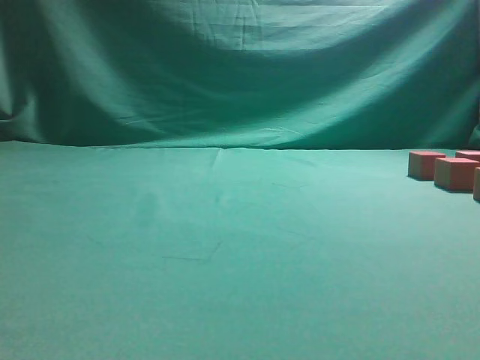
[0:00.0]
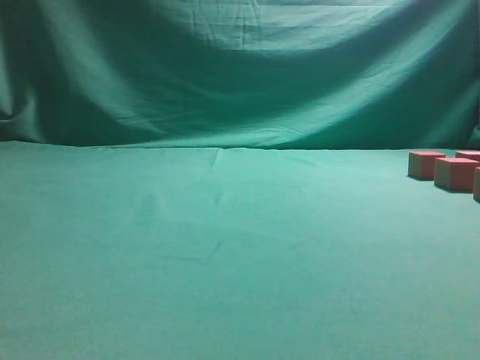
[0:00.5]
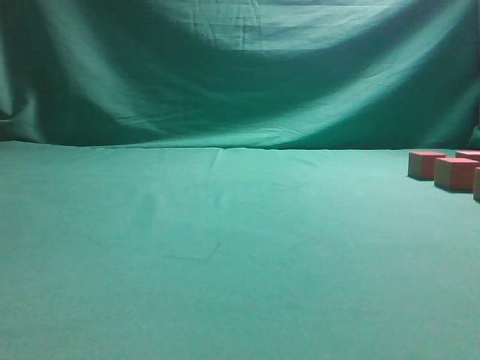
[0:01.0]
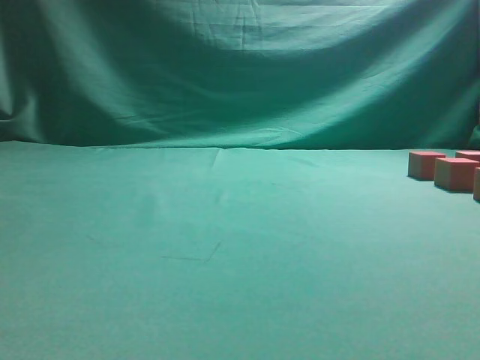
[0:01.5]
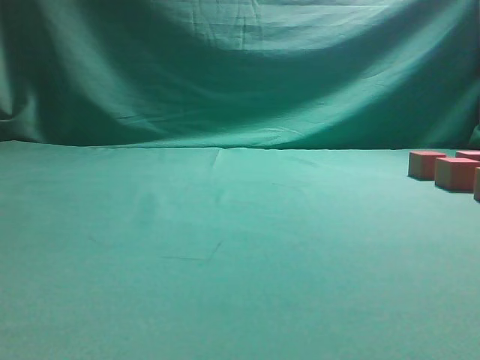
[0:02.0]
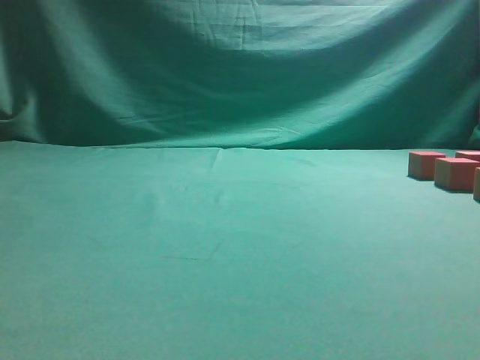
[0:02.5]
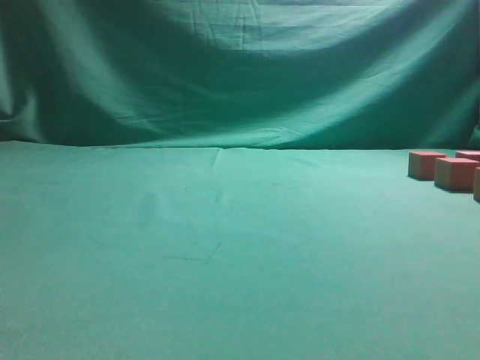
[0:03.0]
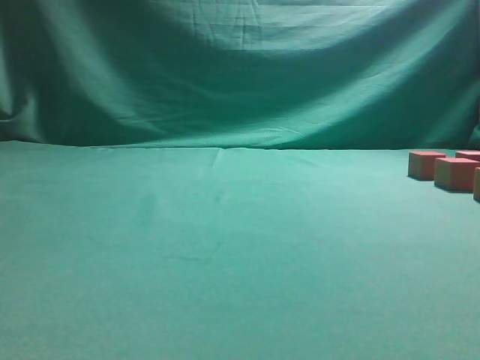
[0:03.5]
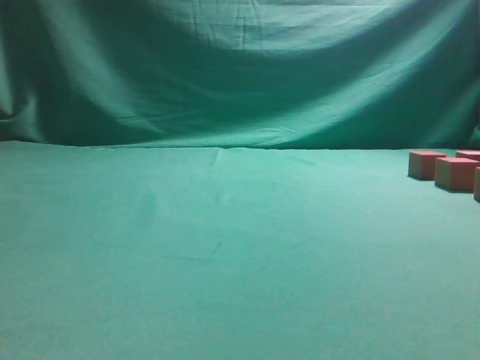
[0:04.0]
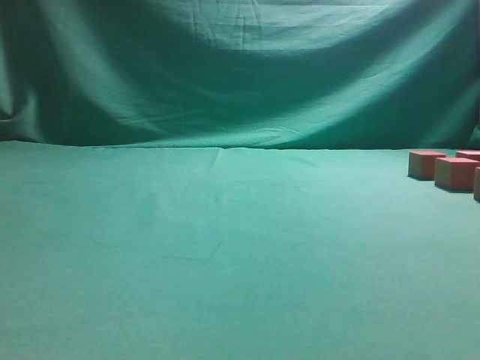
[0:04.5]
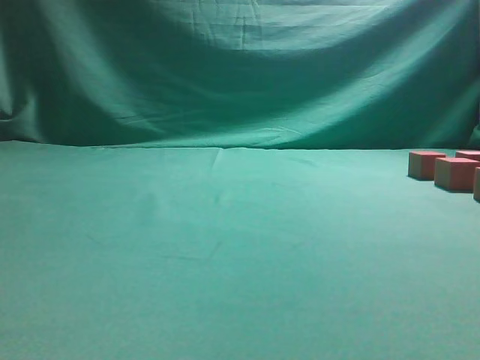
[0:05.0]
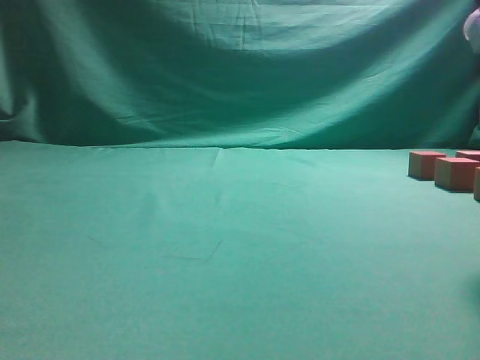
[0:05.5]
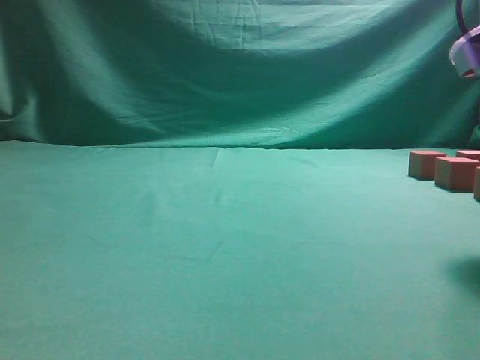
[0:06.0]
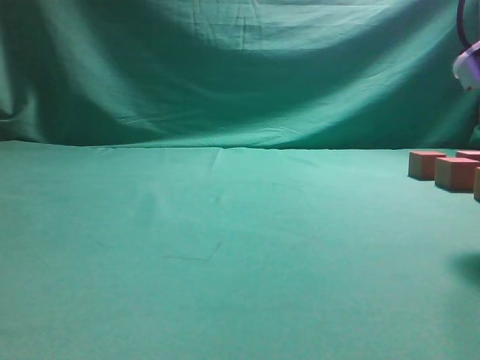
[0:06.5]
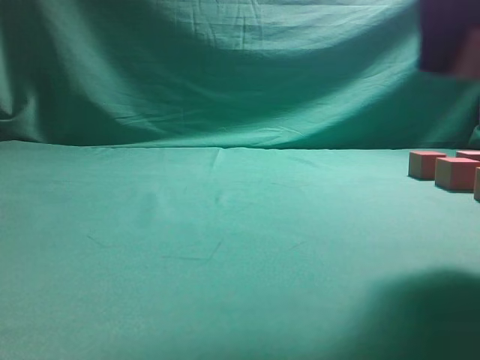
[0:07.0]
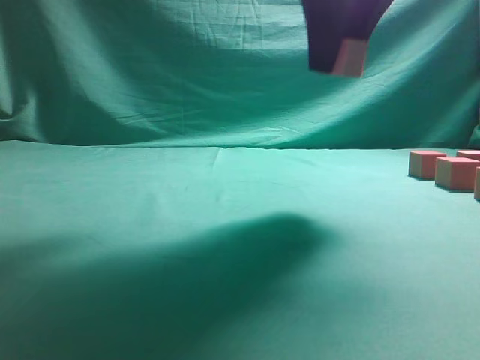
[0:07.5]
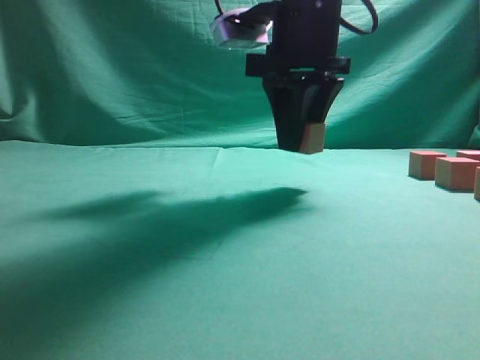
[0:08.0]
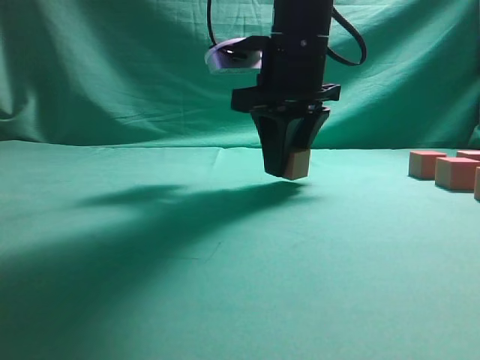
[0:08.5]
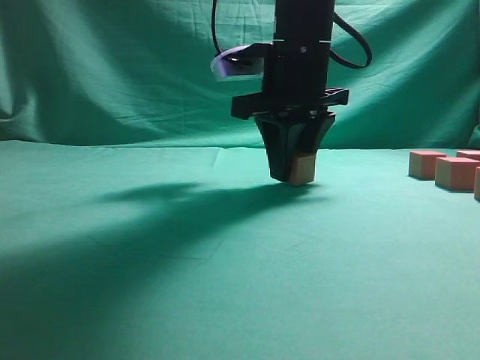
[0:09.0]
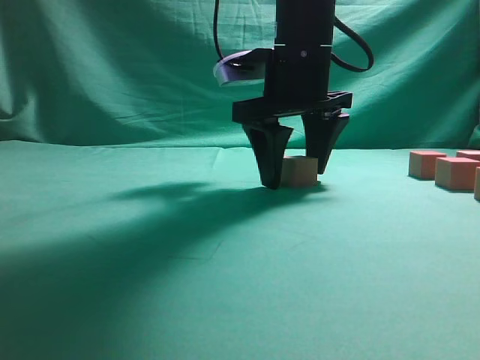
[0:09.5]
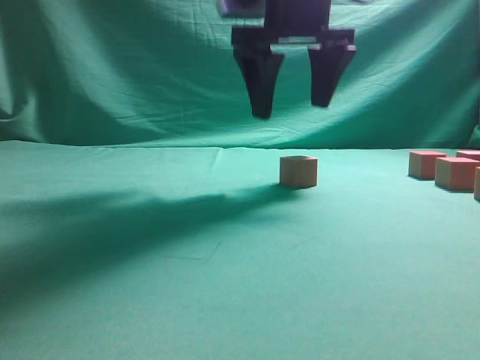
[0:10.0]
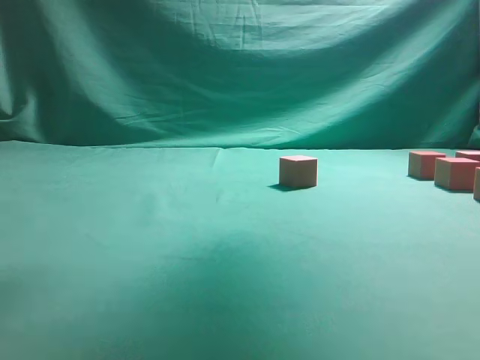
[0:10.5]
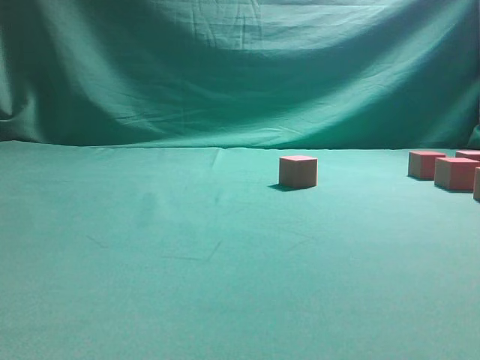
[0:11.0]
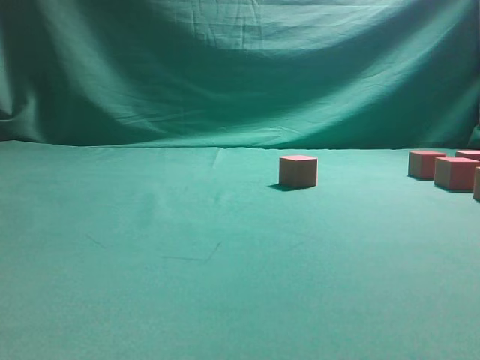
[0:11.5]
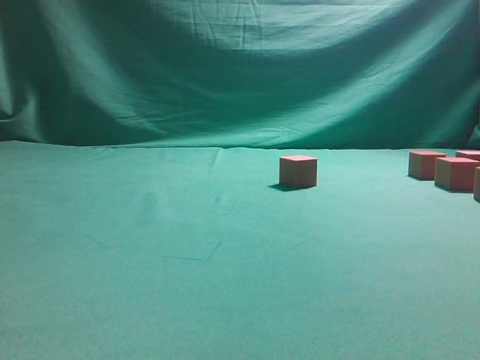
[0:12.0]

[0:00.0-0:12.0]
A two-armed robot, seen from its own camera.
Task of the whole recording: pick up the multiple cubes in two columns one by one and place them in another position on the table.
Step, 0:00.0 to 0:06.5: Pick up the block on the table.
Step, 0:07.0 to 0:10.0: Place the block at the correct position to assemble the letter S.
0:04.0 to 0:06.0: The right gripper moves downward and forward, approximately 10 cm, and opens.
0:06.0 to 0:08.0: The right gripper is displaced forward and to the left by roughly 20 cm, and closes up.
0:08.0 to 0:10.0: The right gripper opens its fingers.
0:10.0 to 0:12.0: The right gripper goes roughly 30 cm to the right and backward.

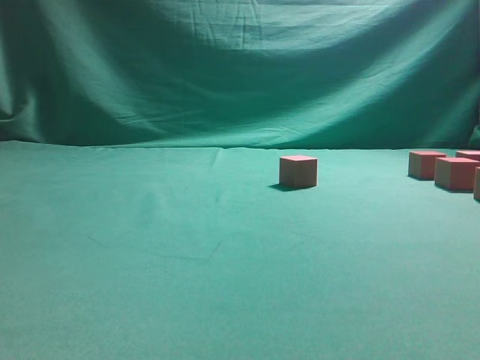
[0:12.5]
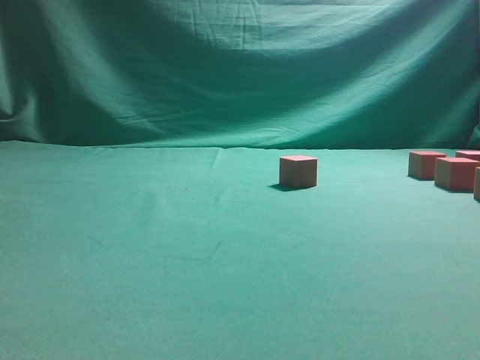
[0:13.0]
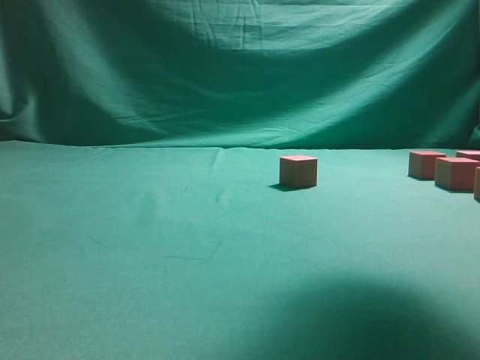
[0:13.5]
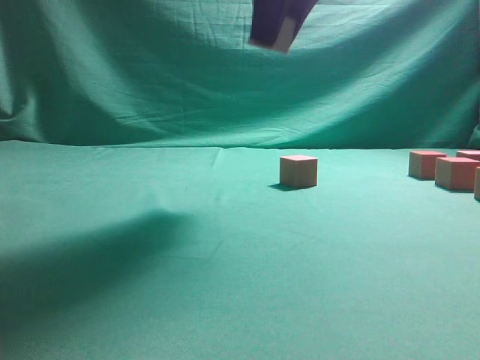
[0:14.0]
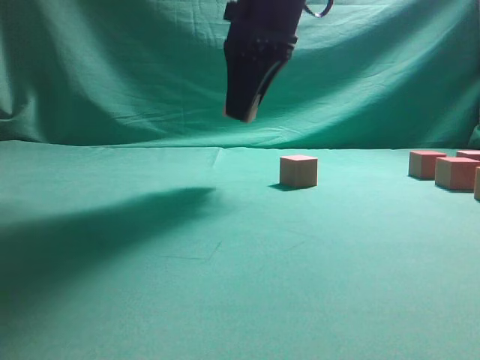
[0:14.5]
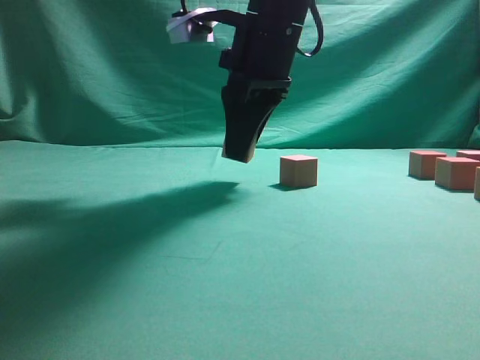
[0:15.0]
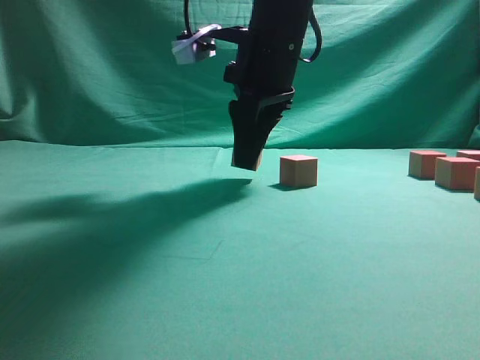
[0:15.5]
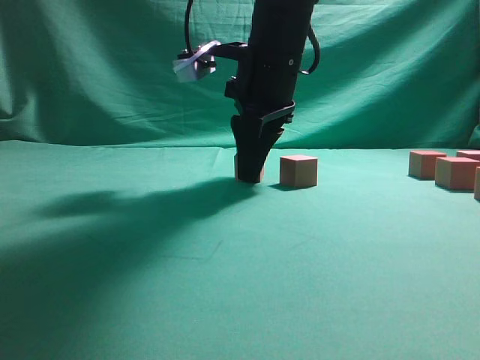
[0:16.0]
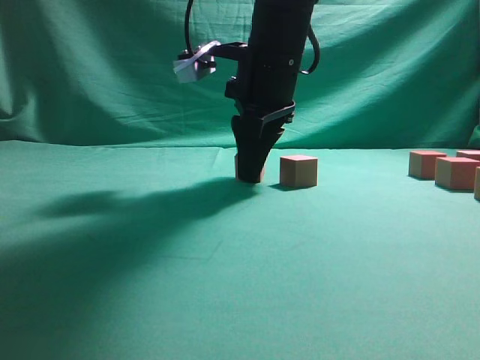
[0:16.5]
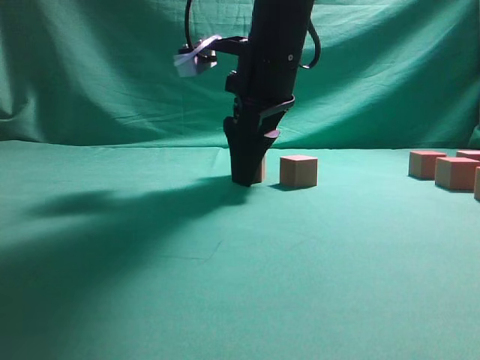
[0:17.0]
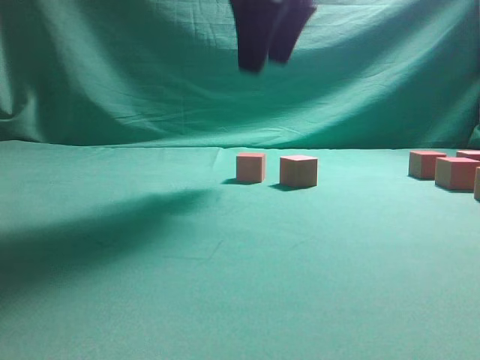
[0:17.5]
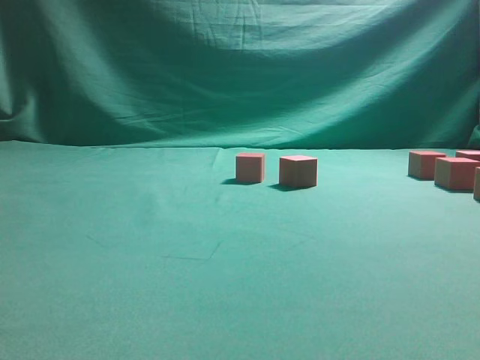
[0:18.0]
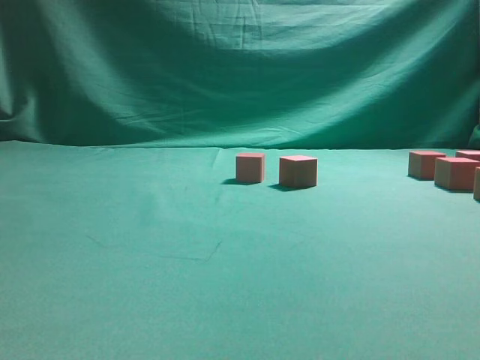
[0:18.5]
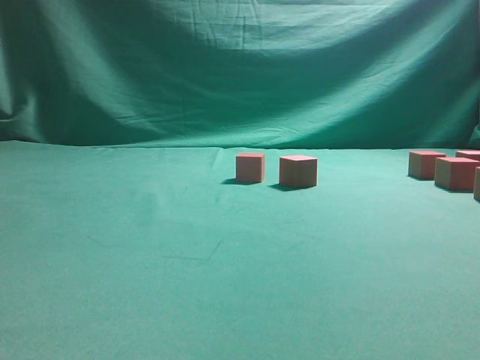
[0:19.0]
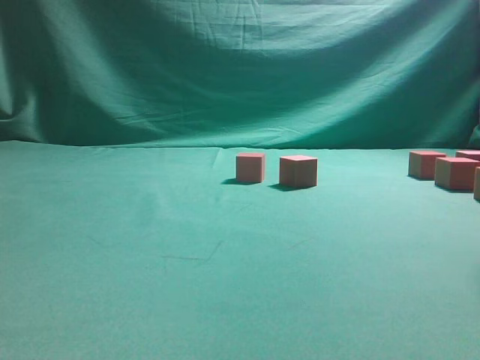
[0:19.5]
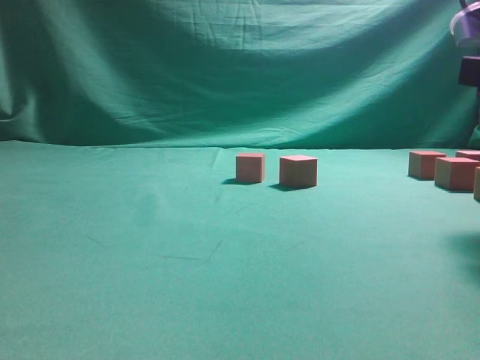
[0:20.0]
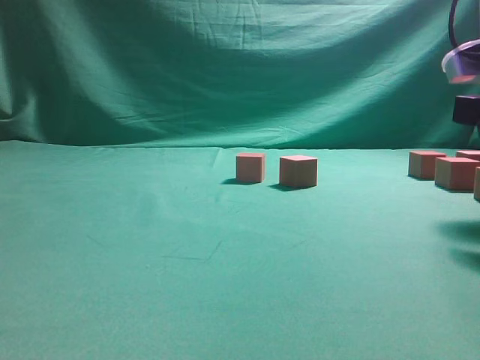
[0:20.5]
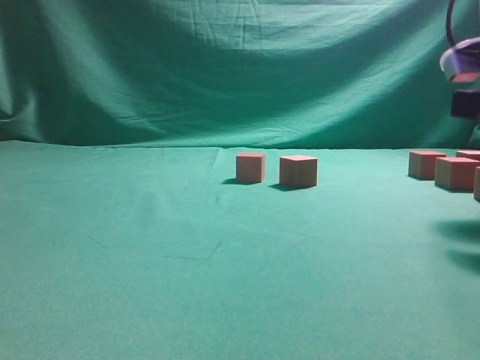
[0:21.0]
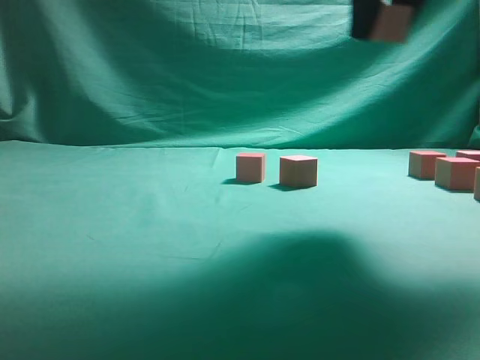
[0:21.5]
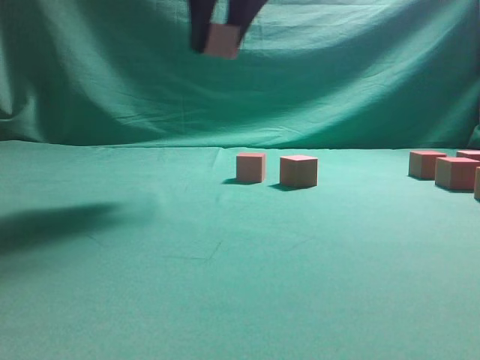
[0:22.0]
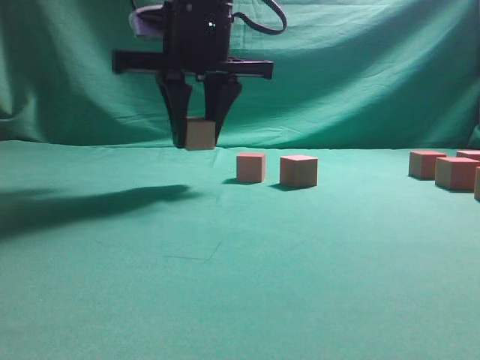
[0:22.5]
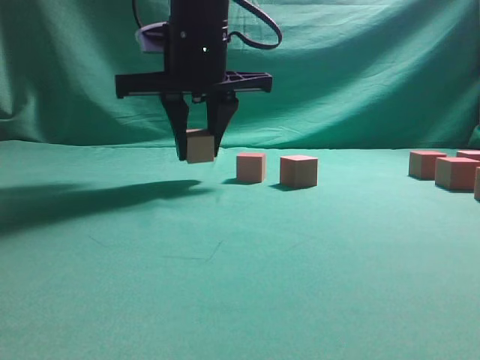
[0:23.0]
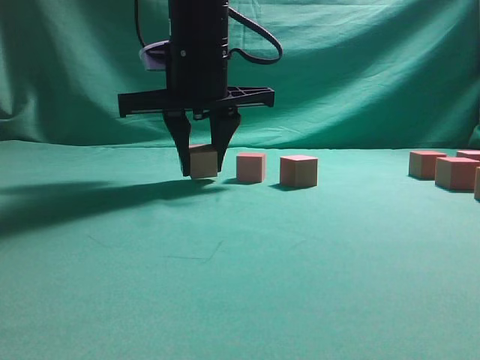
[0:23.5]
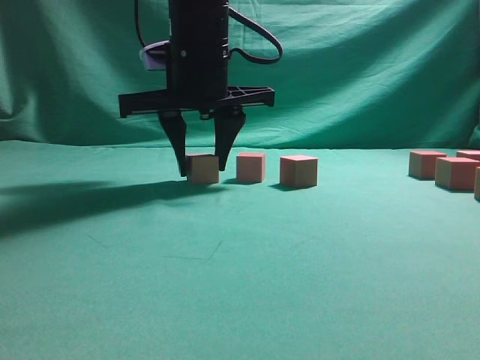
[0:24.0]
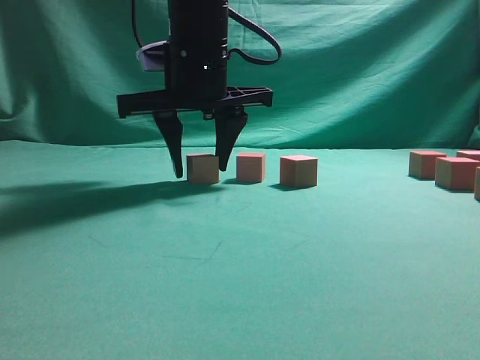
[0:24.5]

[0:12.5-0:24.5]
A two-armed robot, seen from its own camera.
Task of the whole recording: pick up the multiple cubes in two columns one by one and place them in another position on the table.
Step, 0:13.5 to 0:17.0: Place the block at the correct position to assemble the letter S.
Step, 0:18.0 to 0:21.0: Pick up the block on the table.
0:12.5 to 0:14.5: The right gripper goes about 30 cm to the left and forward.
0:14.5 to 0:16.5: The right gripper shifts roughly 5 cm downward.
0:16.5 to 0:18.5: The right gripper shifts about 35 cm upward, backward and to the right, and opens up.
0:18.5 to 0:20.5: The right gripper is displaced downward by some 25 cm.
0:20.5 to 0:22.5: The right gripper heads to the left, covering roughly 25 cm.
0:22.5 to 0:24.5: The grippers stay close to where they were, moving slightly.

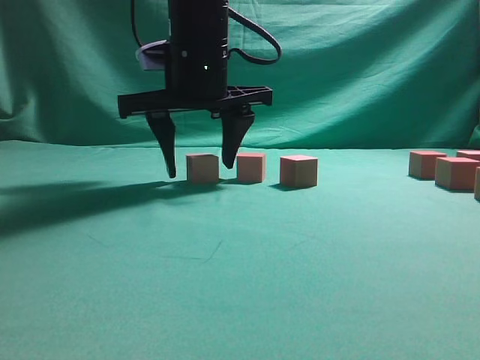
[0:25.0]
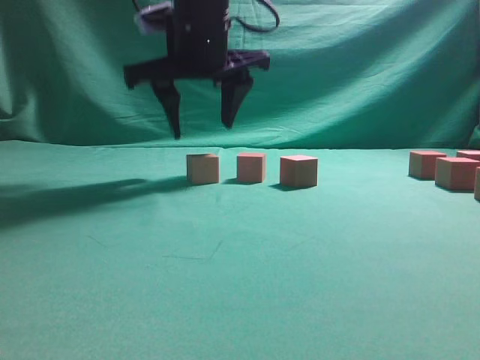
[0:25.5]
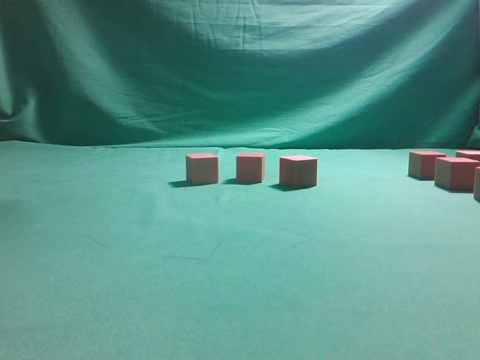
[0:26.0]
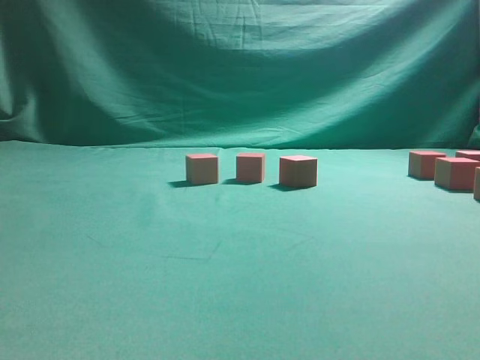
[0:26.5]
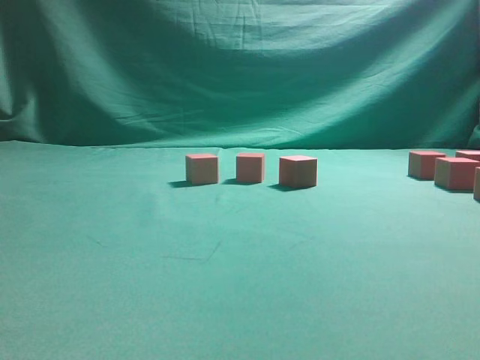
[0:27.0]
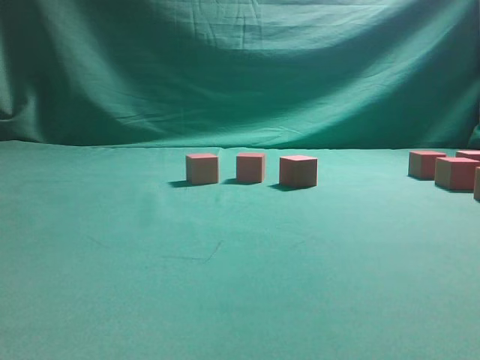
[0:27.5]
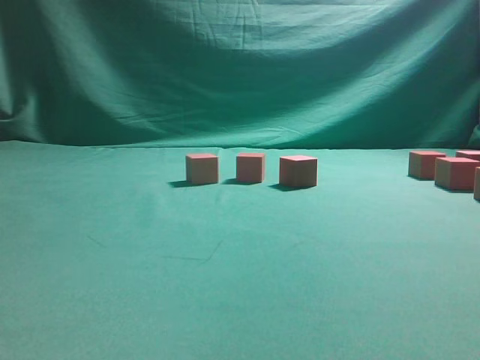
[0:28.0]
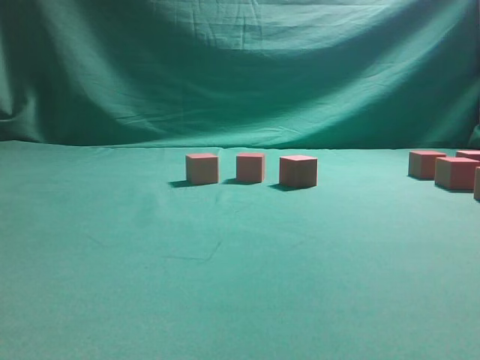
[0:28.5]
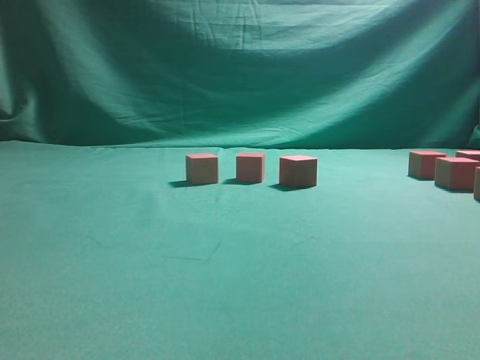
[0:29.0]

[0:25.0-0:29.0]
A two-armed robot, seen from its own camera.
Task of the whole recording: pick up the multiple cubes in two columns one by one and place them in another position on the table.
0:25.0 to 0:27.0: The right gripper heads to the right, backward and upward, covering approximately 40 cm.
